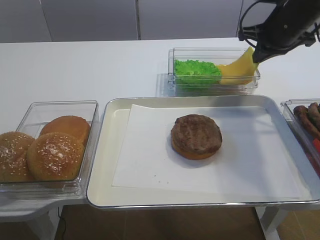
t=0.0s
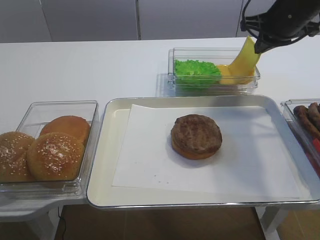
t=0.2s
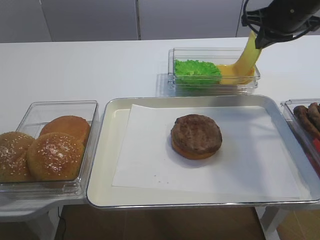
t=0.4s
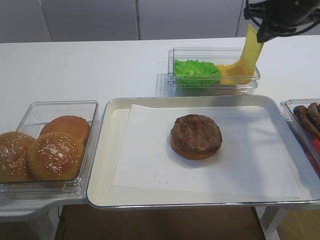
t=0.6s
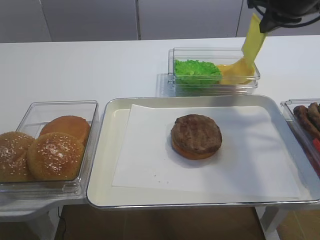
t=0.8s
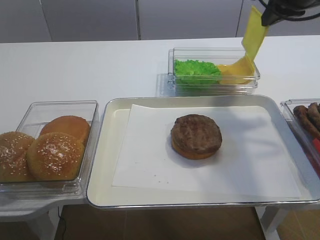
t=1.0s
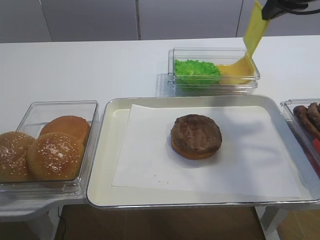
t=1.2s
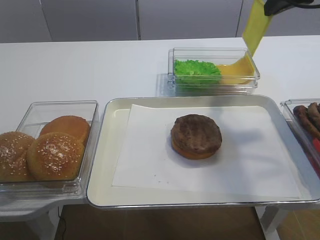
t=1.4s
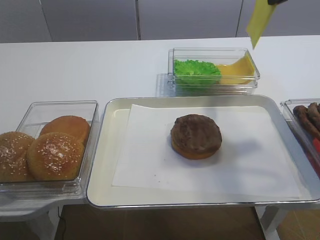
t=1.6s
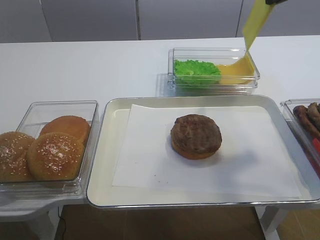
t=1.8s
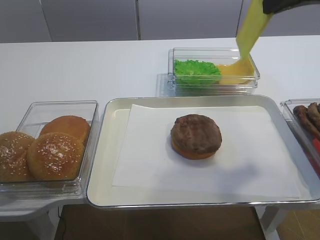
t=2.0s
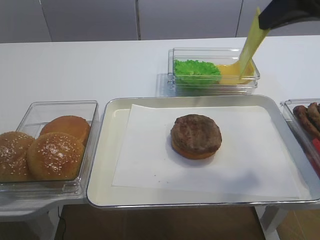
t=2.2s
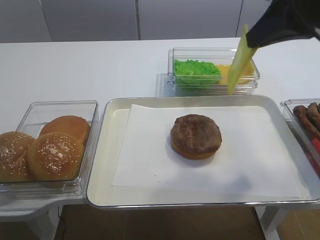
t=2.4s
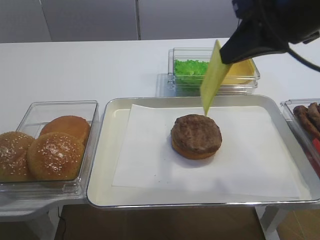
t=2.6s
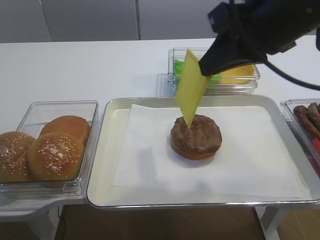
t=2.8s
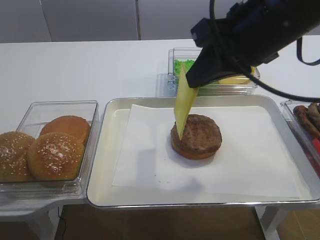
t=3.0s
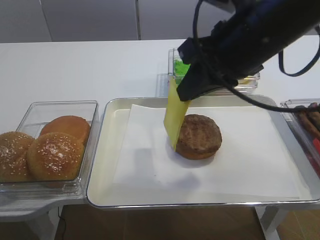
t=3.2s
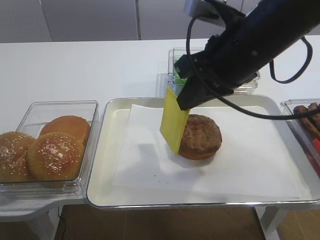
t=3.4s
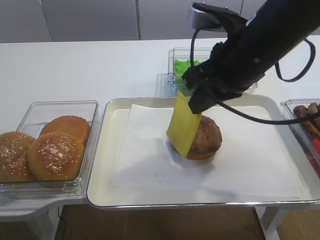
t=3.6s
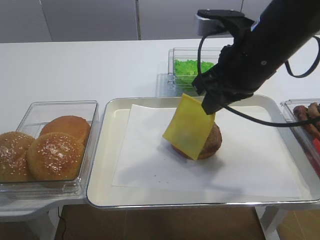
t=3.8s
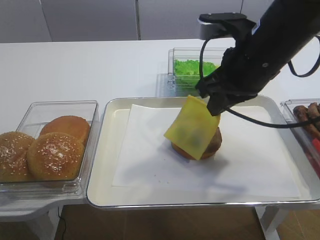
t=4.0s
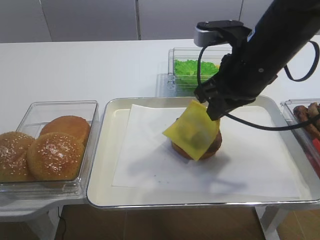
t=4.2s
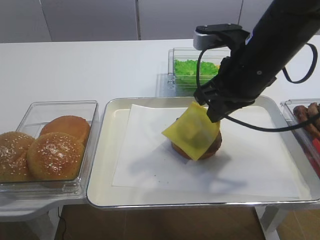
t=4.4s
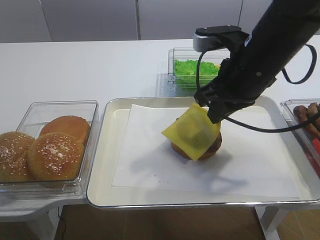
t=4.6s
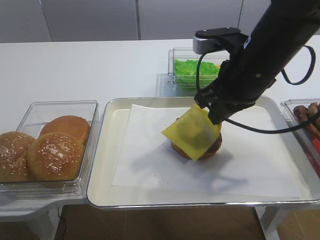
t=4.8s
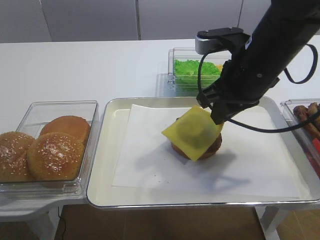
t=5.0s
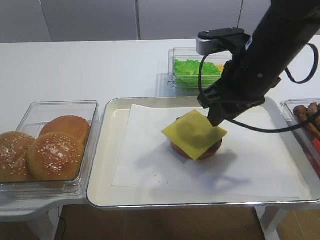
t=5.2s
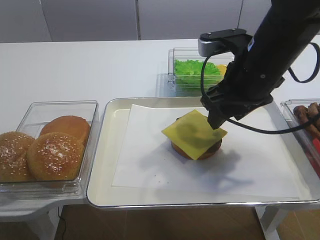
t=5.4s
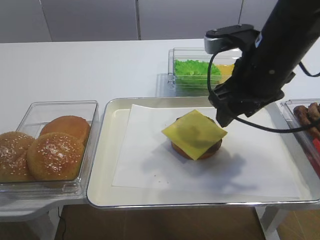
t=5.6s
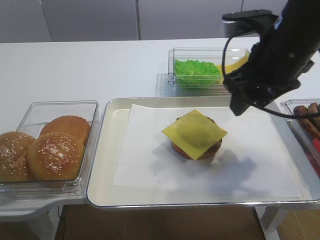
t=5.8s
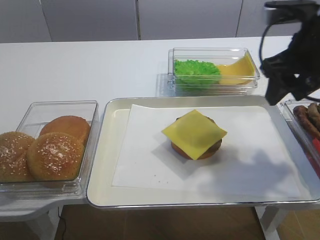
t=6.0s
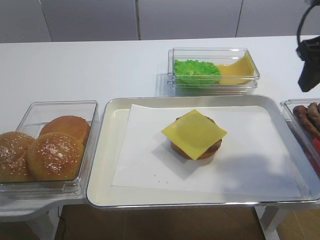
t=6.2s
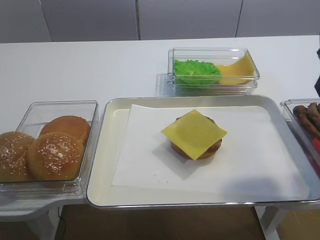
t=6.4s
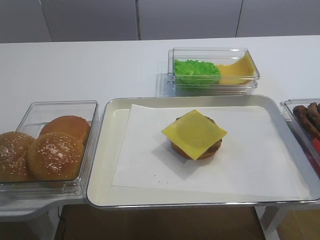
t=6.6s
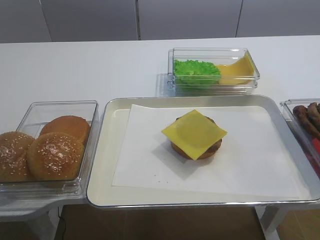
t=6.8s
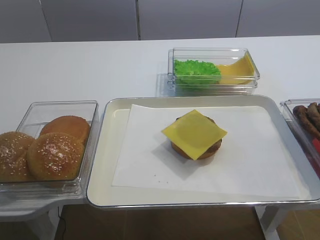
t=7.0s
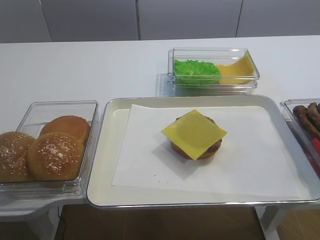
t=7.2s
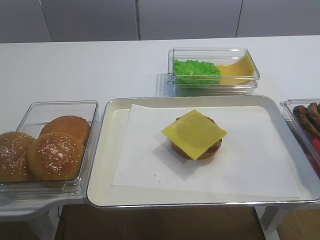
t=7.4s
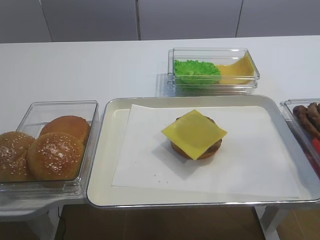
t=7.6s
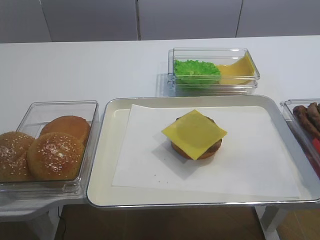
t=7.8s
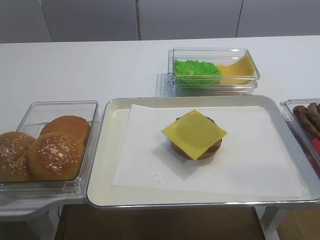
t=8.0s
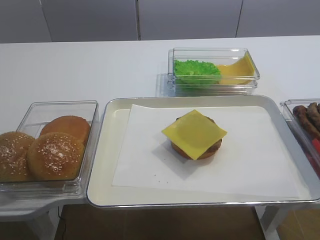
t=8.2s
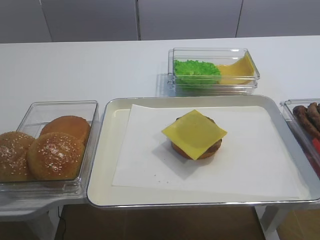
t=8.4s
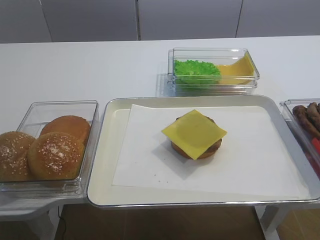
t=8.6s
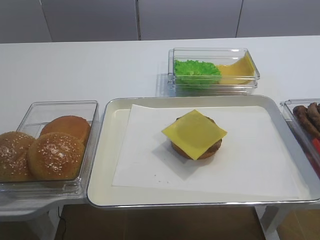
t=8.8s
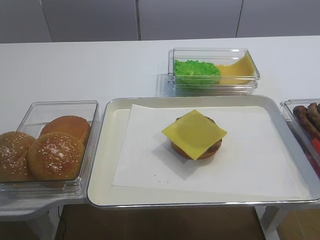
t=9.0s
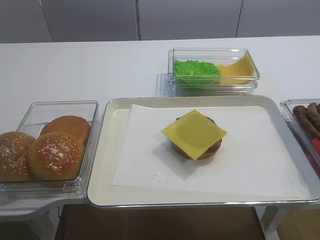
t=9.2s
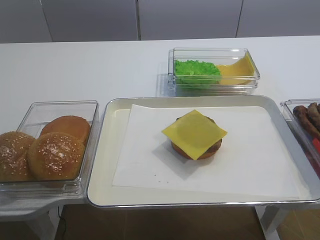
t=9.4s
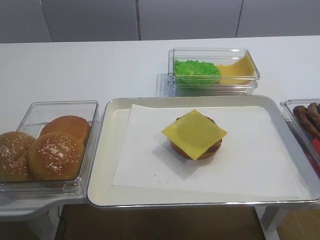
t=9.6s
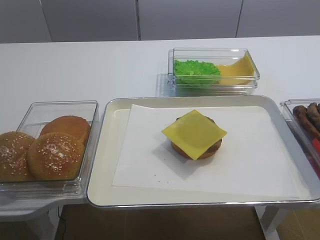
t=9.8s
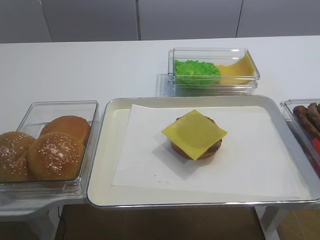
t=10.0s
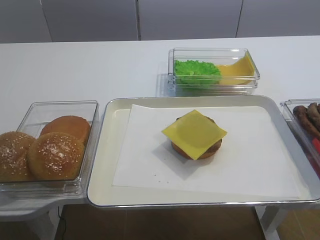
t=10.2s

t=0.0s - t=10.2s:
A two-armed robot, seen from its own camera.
Step, t=0.6s - t=5.6s: Place the cheese slice on the cutlet with the right gripper.
t=0.0s - t=1.4s: The right gripper is displaced upward and backward by roughly 10 cm.
t=1.4s - t=3.0s: The right gripper heads backward and to the left, covering roughly 15 cm.
t=3.0s - t=4.4s: The right gripper travels downward by about 5 cm.
t=4.4s - t=5.8s: The right gripper opens its fingers.
t=5.8s - t=7.2s: The right gripper heads backward and to the right, covering roughly 20 cm.

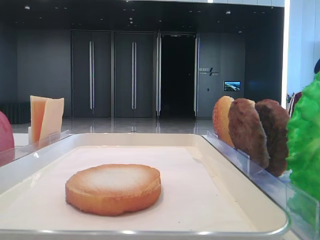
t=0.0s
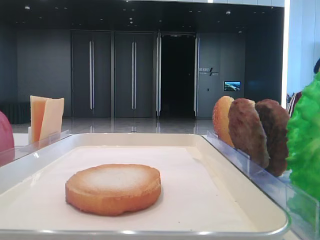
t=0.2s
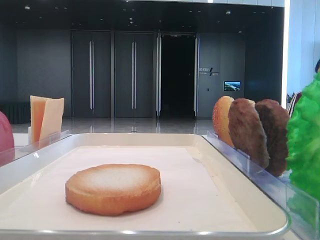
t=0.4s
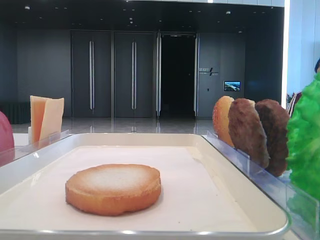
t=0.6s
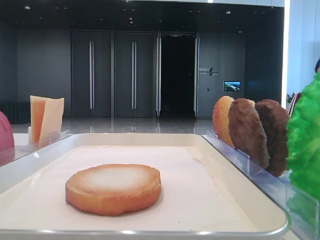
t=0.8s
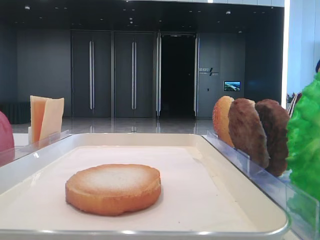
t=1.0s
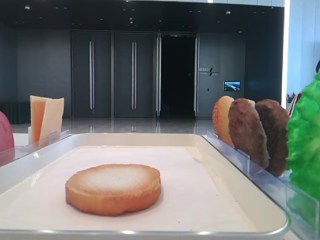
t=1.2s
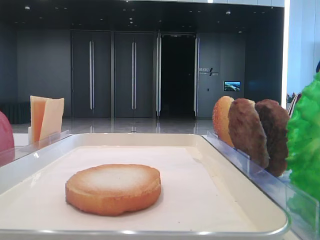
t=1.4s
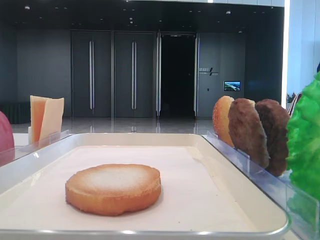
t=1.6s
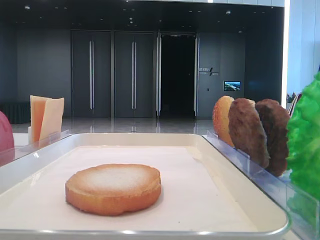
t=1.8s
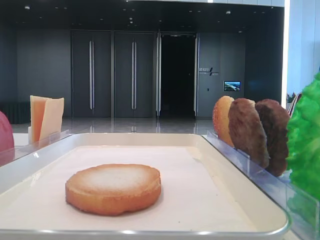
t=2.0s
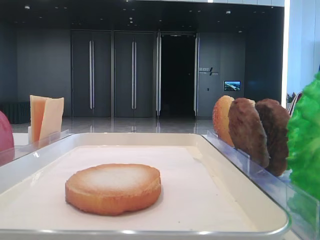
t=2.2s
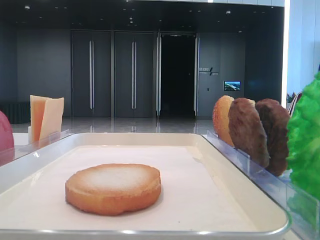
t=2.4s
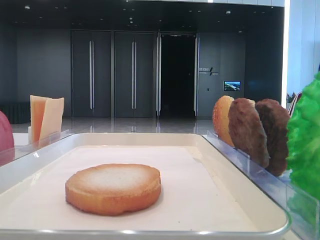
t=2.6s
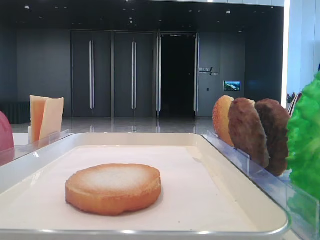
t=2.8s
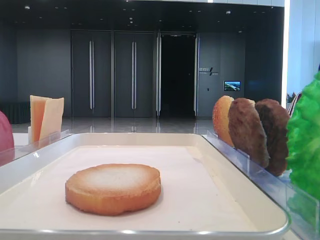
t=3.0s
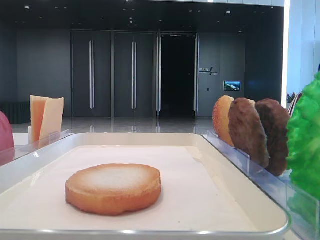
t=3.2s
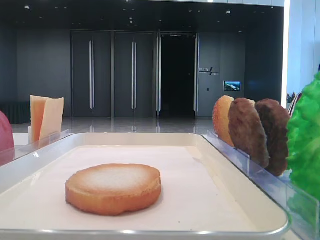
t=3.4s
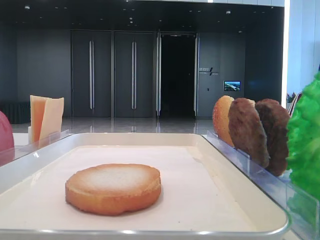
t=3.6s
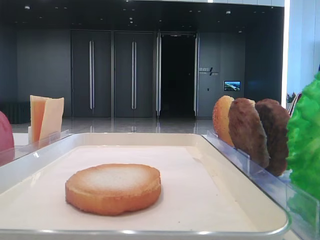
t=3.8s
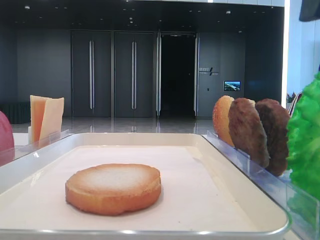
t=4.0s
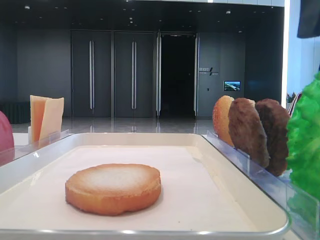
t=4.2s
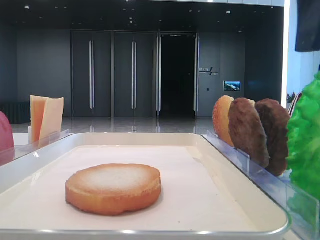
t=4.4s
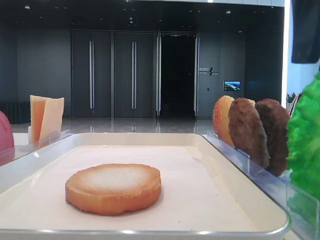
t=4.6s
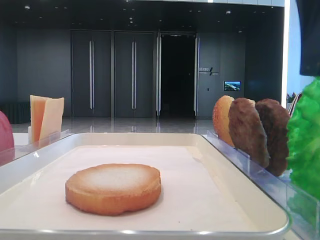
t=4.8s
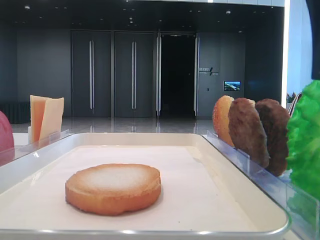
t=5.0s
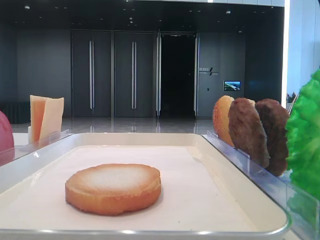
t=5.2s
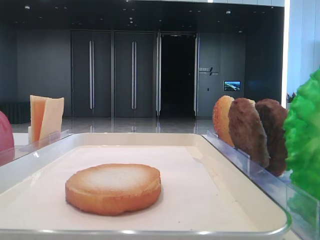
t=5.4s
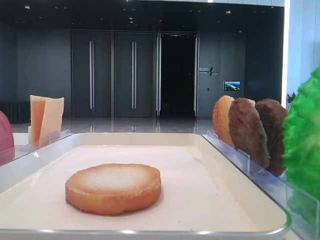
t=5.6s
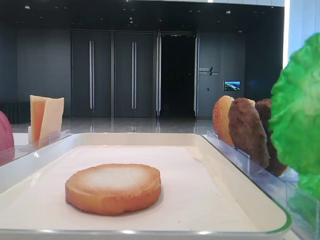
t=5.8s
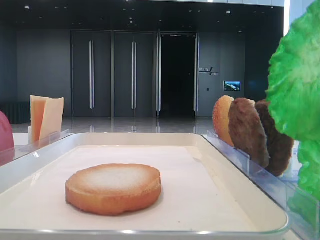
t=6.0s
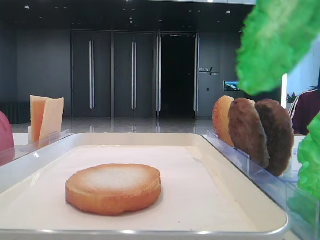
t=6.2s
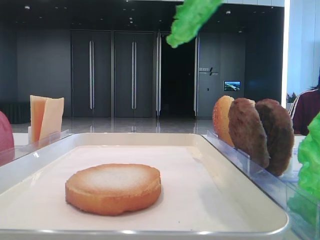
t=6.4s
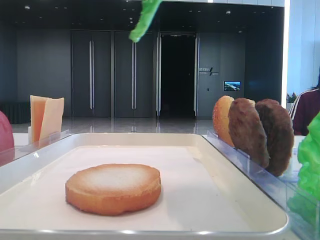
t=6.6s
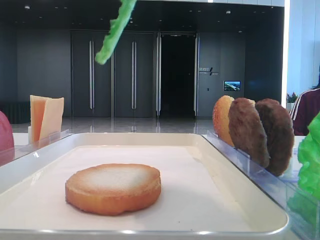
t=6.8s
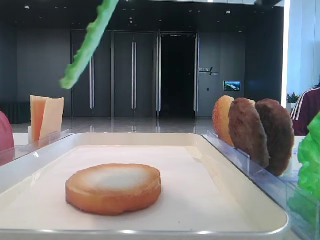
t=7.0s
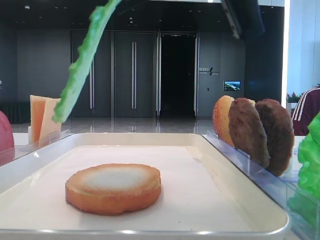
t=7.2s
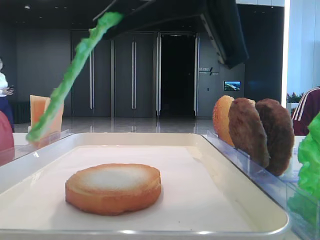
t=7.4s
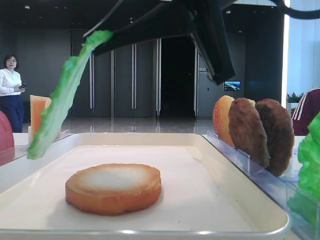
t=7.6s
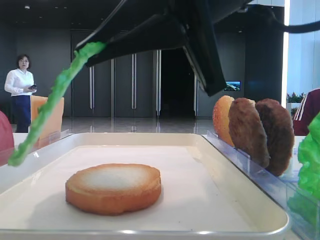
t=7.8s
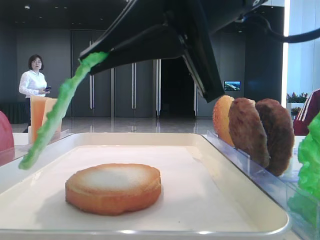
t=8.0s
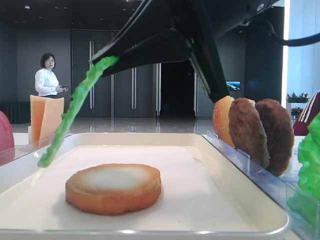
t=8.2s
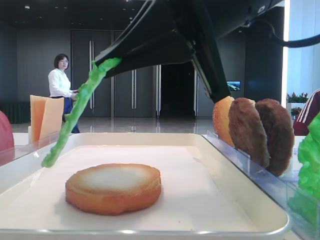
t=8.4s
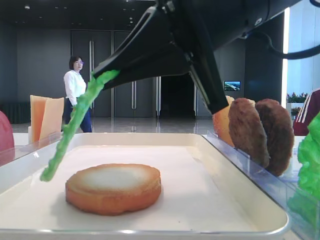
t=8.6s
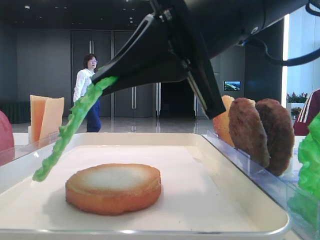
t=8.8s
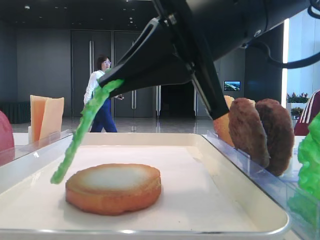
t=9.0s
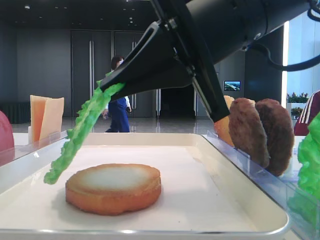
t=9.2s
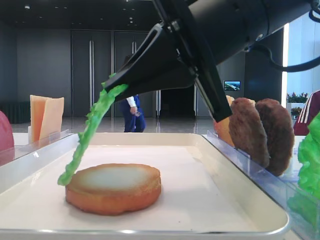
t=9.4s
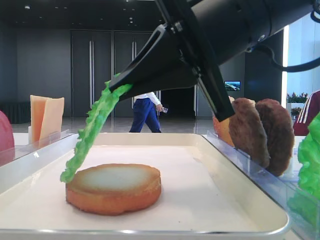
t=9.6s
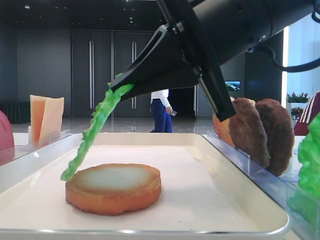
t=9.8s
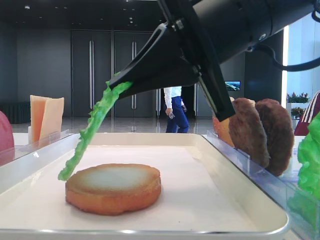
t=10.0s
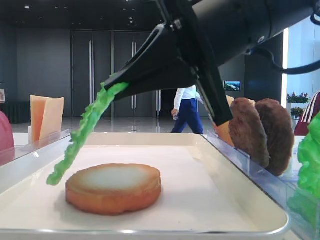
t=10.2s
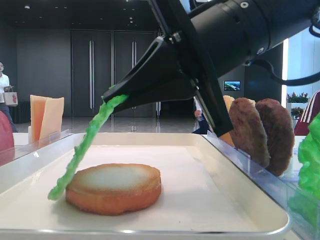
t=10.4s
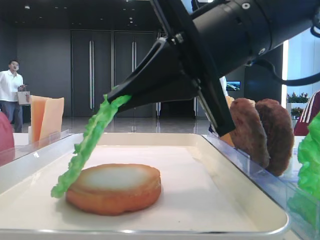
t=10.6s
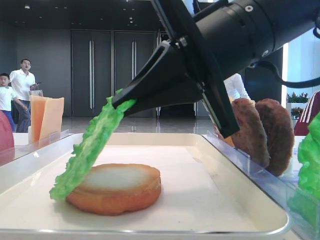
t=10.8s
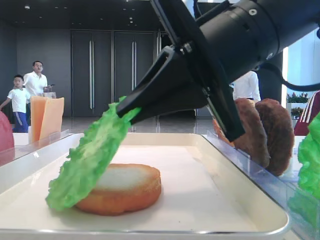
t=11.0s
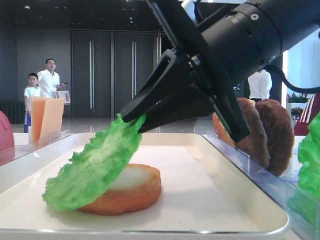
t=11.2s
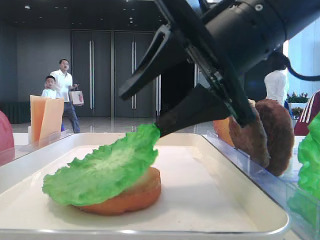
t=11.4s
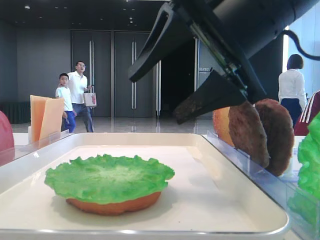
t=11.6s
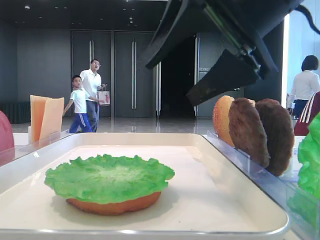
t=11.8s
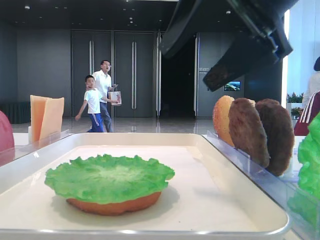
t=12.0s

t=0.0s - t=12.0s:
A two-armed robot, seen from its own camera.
Step, t=0.0s - t=5.4s: Grab the lettuce leaf with the right hand.
Step, t=5.6s - t=11.4s: Place the lettuce leaf on the bottom bread with the right hand.
t=3.0s - t=4.4s: The right gripper goes about 10 cm to the left.
t=4.4s - t=6.0s: The right gripper closes.
t=6.0s - t=7.6s: The right gripper is displaced to the left, downward and forward by about 15 cm.
t=7.6s - t=10.4s: The grippers move only a little.
t=10.4s - t=12.0s: The right gripper travels upward and to the right by approximately 10 cm, and opens up.
